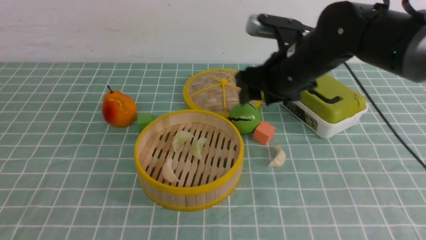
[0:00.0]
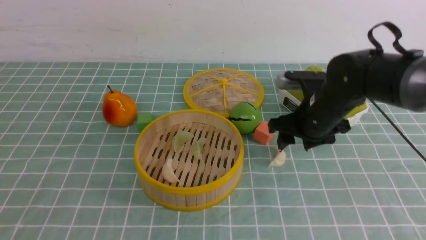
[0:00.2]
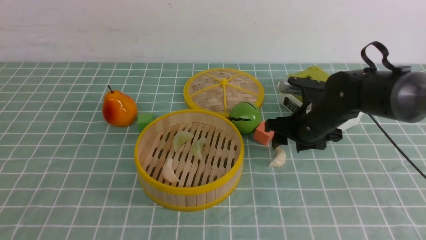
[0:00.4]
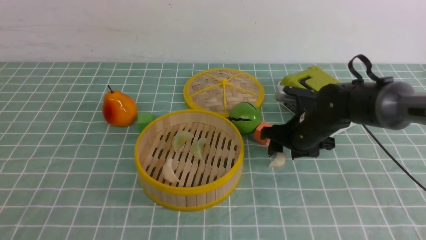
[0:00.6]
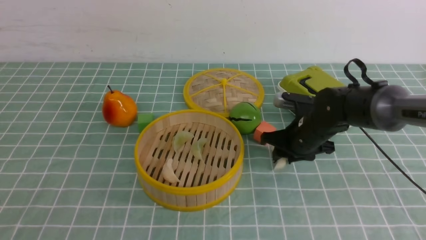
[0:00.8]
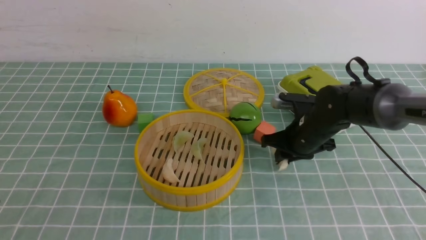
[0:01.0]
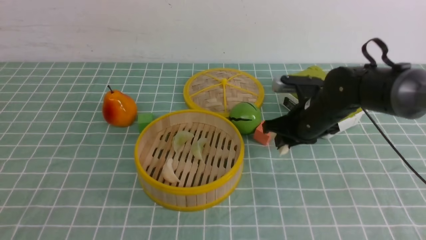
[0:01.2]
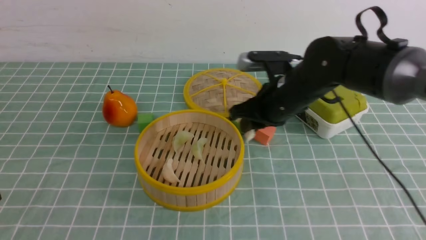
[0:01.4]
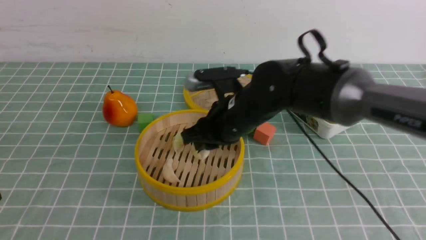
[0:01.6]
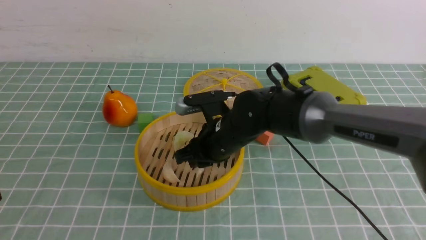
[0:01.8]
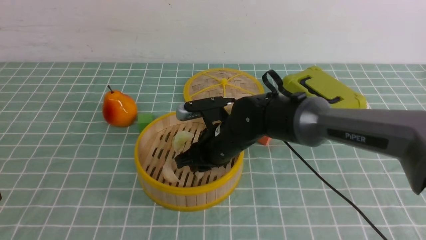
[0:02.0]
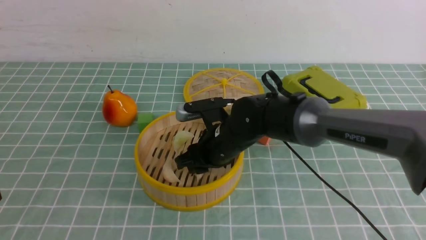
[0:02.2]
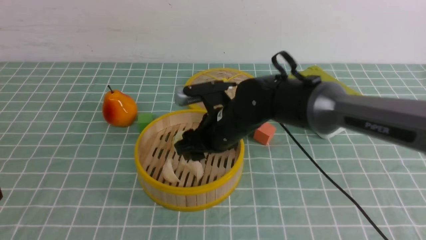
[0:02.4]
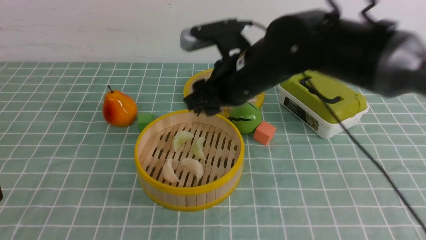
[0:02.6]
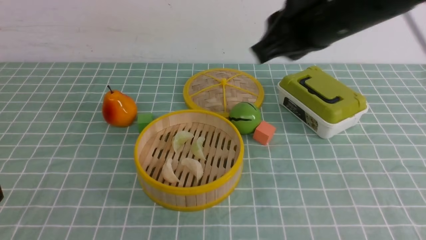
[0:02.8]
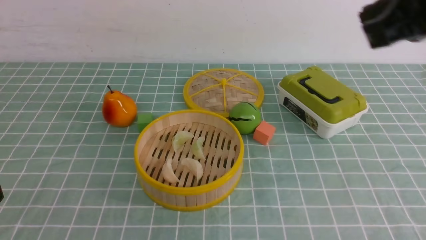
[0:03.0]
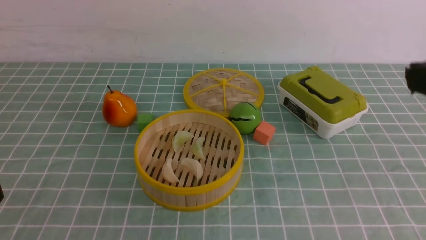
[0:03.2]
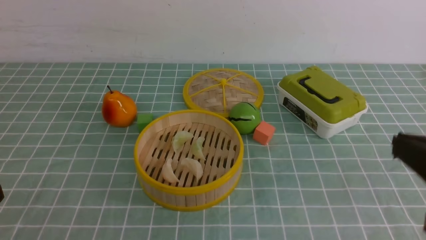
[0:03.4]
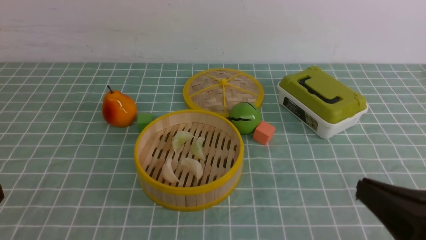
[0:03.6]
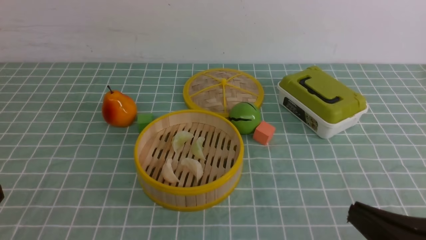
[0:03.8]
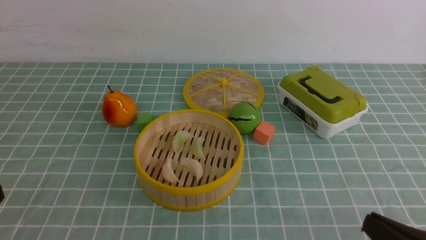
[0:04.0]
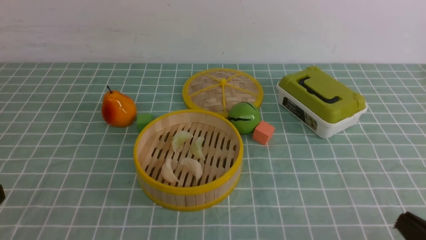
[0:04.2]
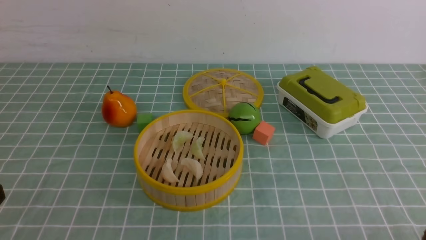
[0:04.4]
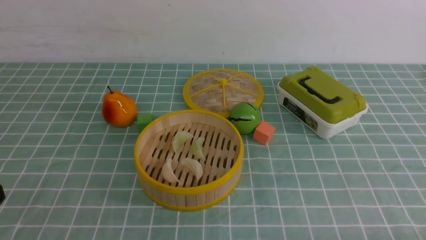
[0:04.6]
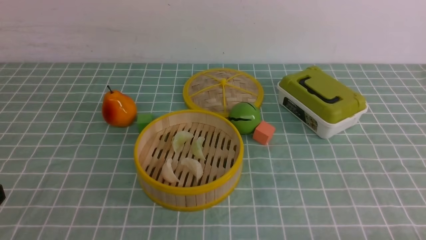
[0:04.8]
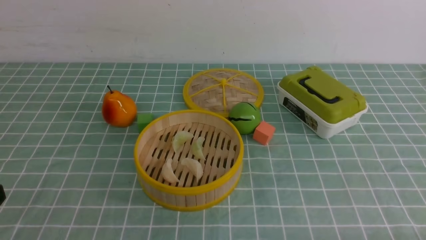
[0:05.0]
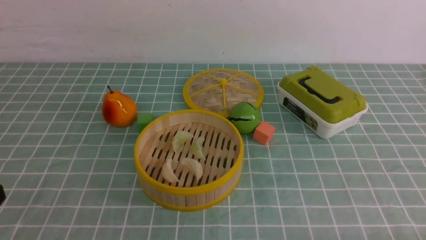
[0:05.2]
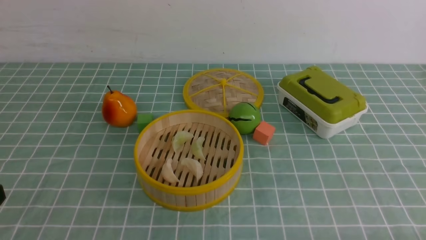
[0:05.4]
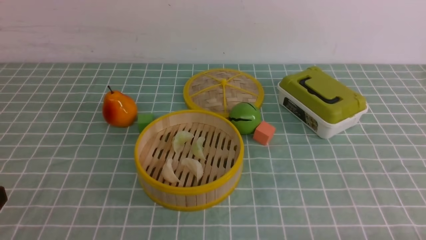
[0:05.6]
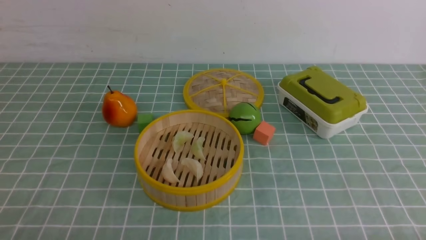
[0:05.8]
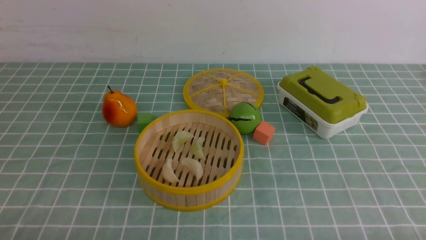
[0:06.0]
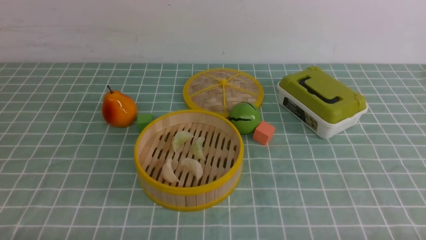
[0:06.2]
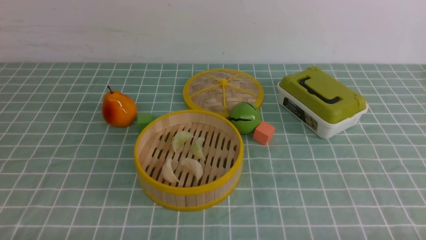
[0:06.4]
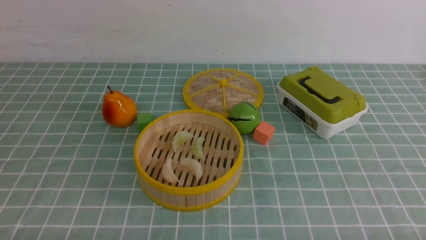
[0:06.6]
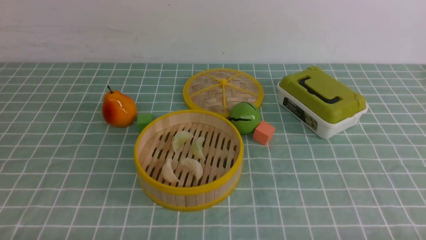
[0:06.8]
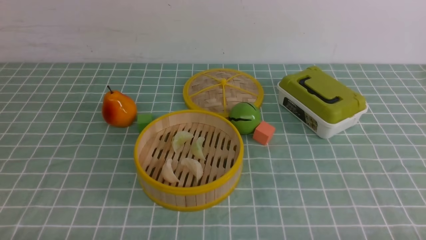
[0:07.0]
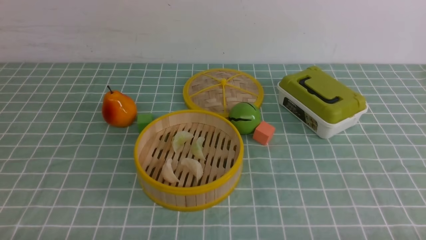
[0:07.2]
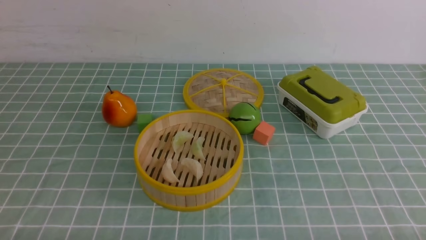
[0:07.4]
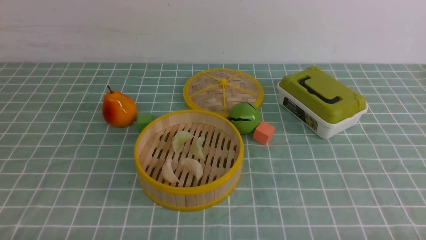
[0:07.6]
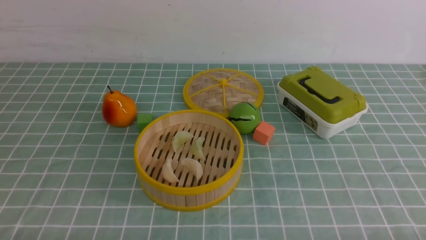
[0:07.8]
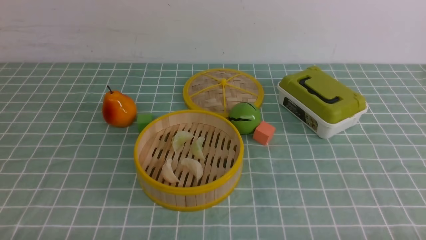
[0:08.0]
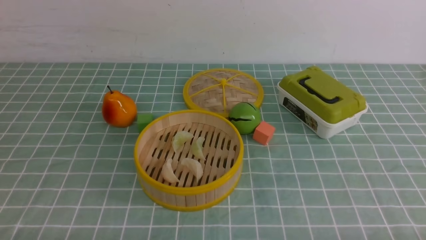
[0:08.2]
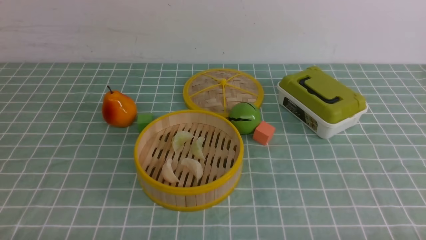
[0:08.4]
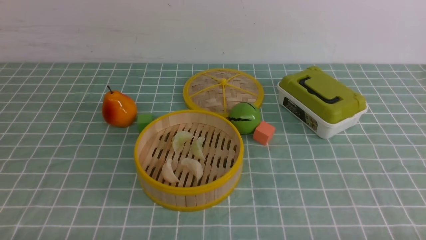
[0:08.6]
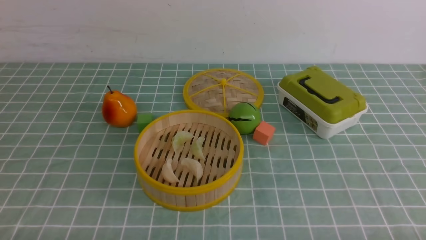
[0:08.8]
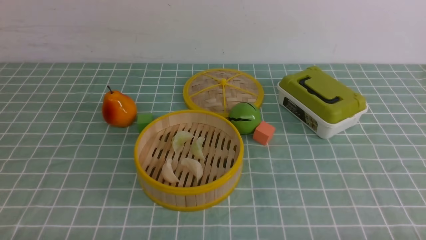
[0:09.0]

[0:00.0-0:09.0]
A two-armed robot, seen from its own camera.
Task of the whole recording: put the dumplings into the steamer on the table with the blue tablecloth.
Step, 0:00.0 to 0:01.2: use the right arm to grab a dumpling.
Step, 0:01.4 to 0:02.4: use the right arm to put the dumpling into the steamer.
0:00.0 to 0:01.6: The right gripper is displaced to the left by some 5 cm, and closes.
0:01.6 to 0:03.0: The right gripper heads upward, backward and to the right, covering some 30 cm, and closes.
0:03.0 to 0:04.4: The right gripper travels downward and backward by approximately 30 cm.
0:07.6 to 0:09.0: Neither gripper changes place.

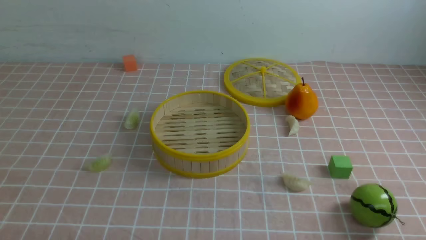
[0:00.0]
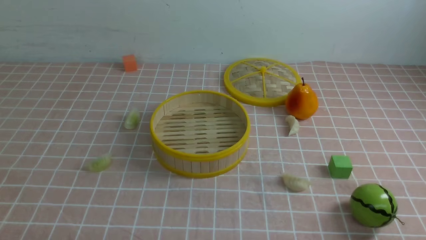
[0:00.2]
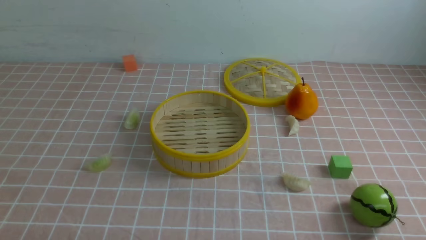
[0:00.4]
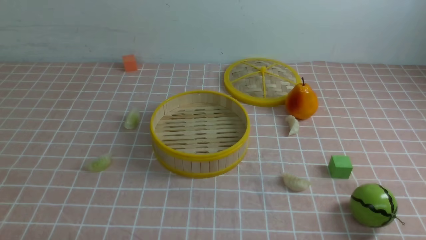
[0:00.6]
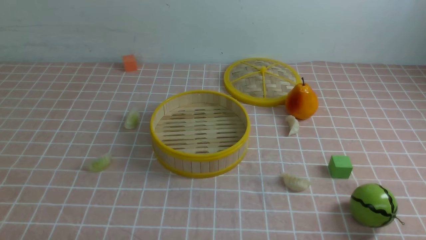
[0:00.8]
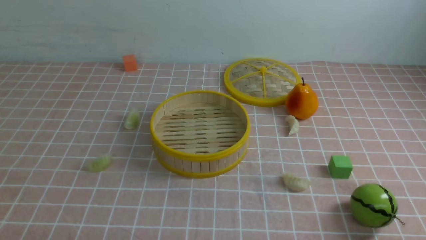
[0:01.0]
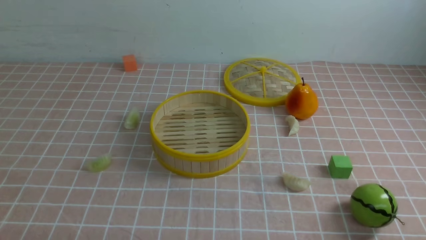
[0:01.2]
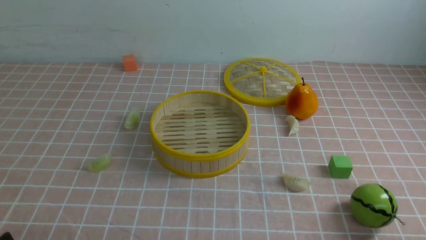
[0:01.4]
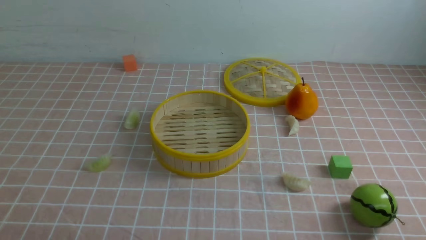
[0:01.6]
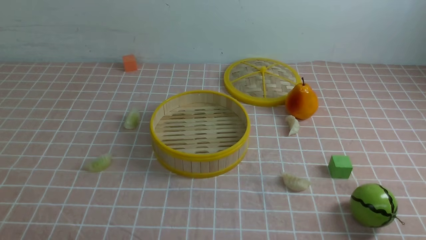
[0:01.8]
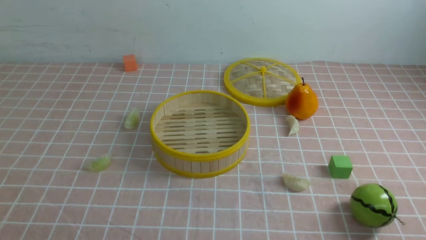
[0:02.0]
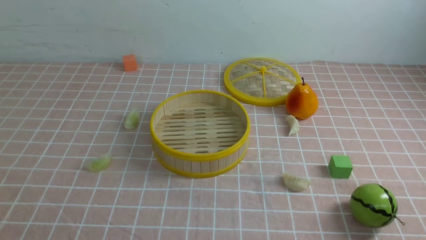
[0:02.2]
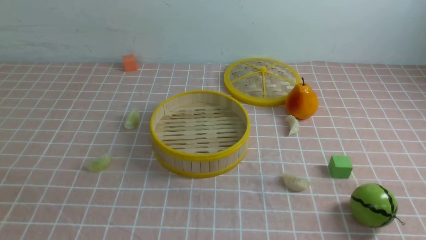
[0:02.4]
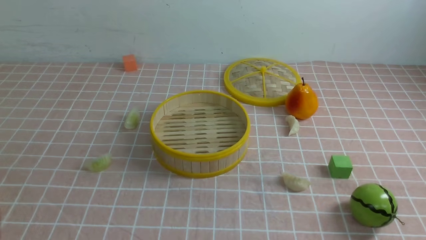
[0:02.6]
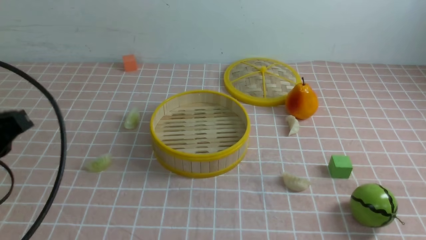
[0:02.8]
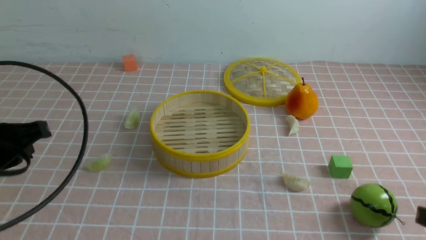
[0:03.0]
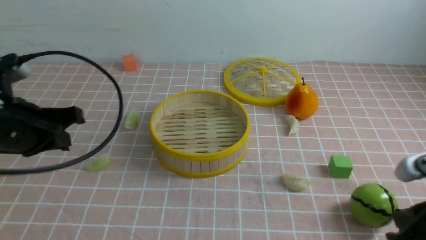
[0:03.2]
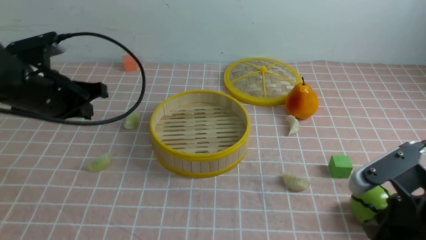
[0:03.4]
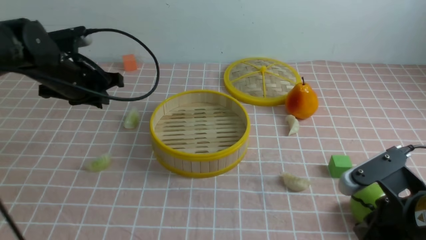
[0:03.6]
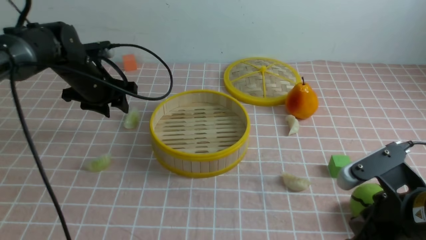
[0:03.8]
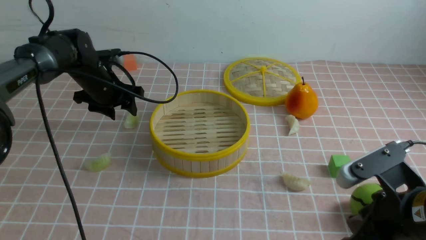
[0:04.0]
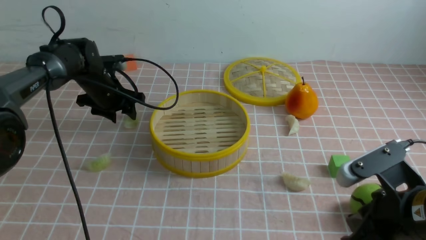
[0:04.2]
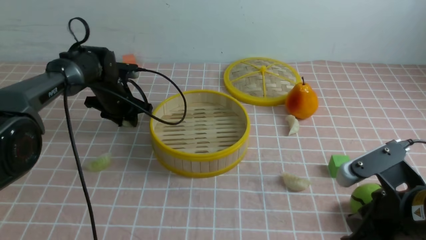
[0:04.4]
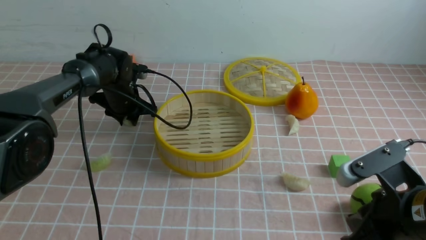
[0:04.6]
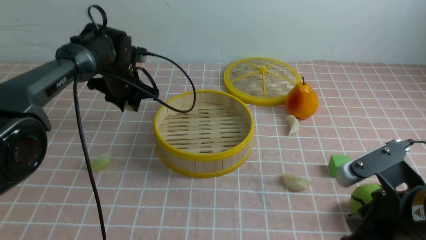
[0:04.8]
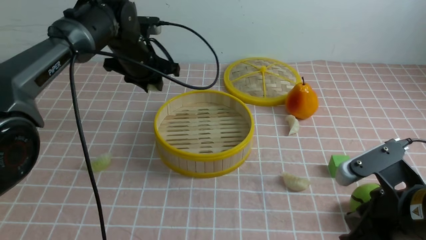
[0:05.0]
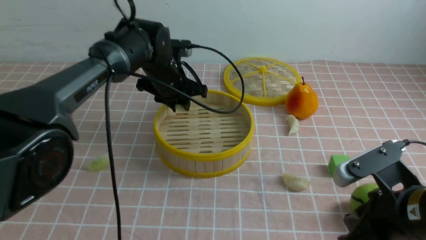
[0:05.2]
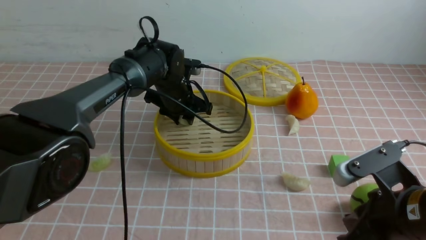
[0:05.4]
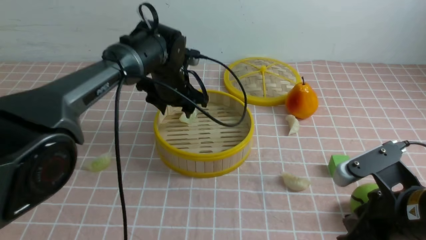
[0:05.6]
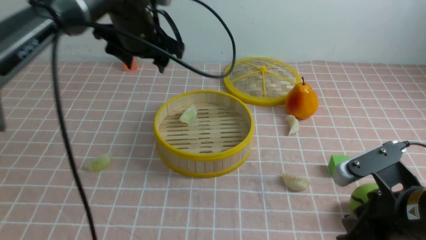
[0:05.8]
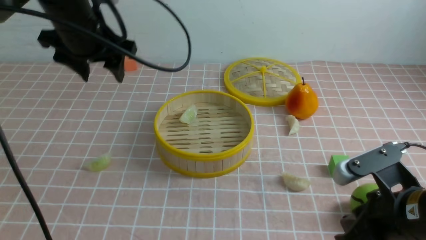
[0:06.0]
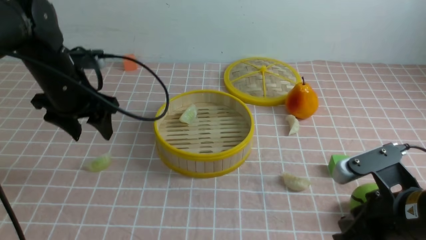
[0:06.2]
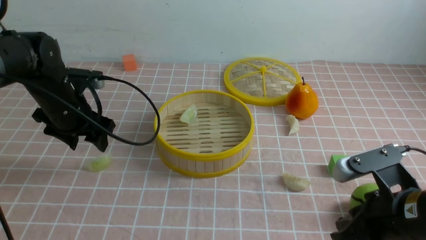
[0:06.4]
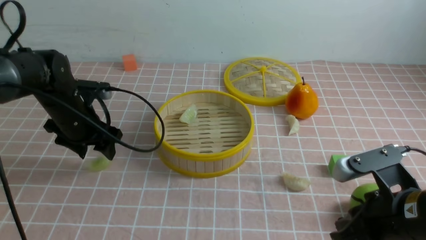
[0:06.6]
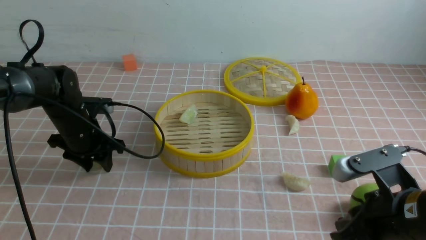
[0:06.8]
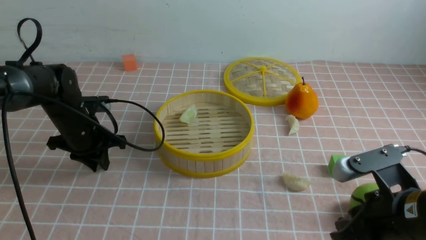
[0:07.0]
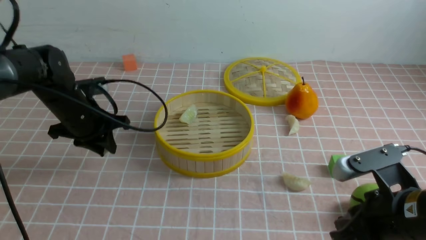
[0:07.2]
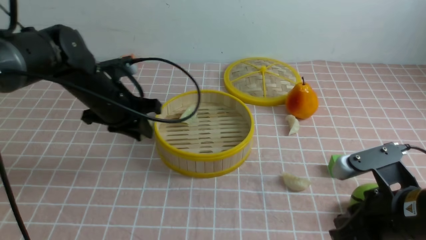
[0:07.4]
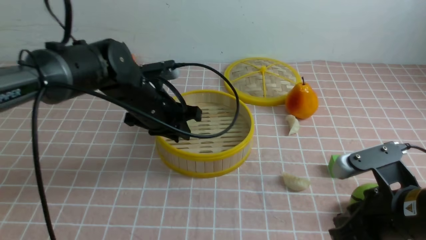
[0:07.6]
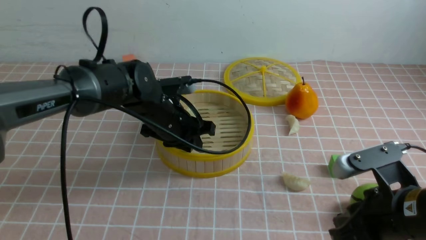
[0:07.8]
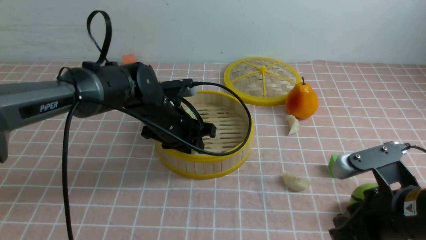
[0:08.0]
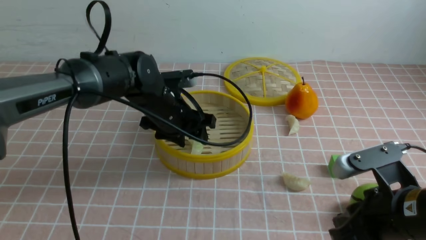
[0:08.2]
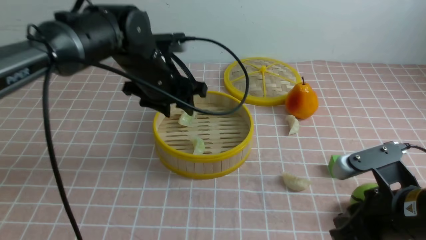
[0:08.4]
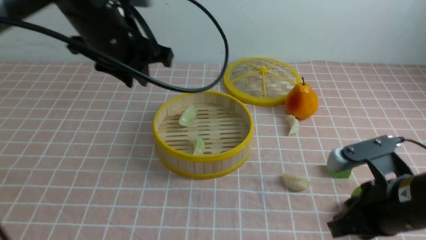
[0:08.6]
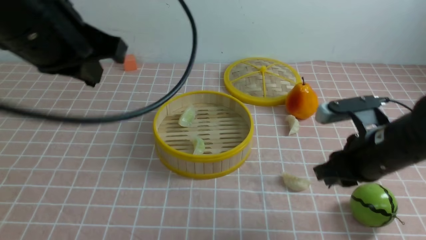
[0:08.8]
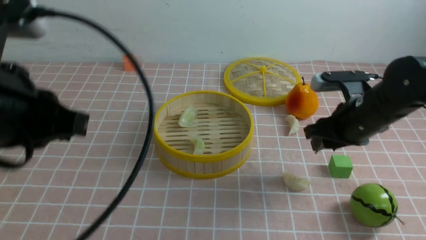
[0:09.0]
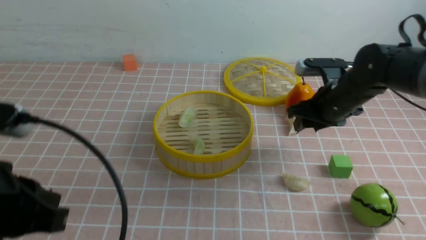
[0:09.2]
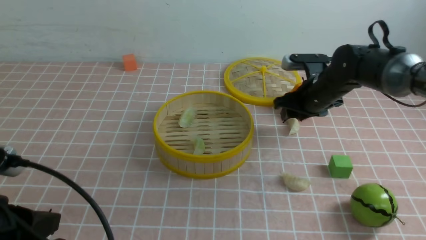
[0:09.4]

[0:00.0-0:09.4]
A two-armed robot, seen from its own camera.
Task of the whole recording: put the dumplings into the steamer on the table with the pink tablecloth.
Step, 0:00.0 to 0:04.6: use the left arm to grab a dumpling.
Step, 0:04.8 to 0:05.4: use the left arm to put the dumpling into the steamer.
Step, 0:05.6 to 0:07.0: use the left arm to grab a dumpling.
Step, 0:07.2 to 0:08.2: use the left arm to put the dumpling into the steamer.
0:01.6 to 0:03.2: The right gripper is displaced forward by some 10 cm, and closes, while the left gripper is displaced forward and upward by about 25 cm.
0:03.2 to 0:04.8: The right gripper moves about 5 cm; the left gripper goes some 25 cm forward, and opens.
0:04.8 to 0:06.2: The left gripper heads backward, to the left and upward, covering some 15 cm, and opens.
0:06.2 to 0:07.8: The left gripper shifts about 15 cm to the right and downward, and closes its fingers.
0:07.8 to 0:09.4: The right gripper travels forward by about 30 cm, and opens, while the left gripper goes about 30 cm backward and to the left, and closes up.
